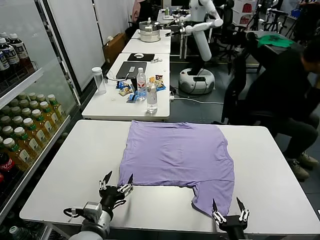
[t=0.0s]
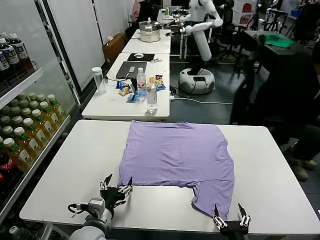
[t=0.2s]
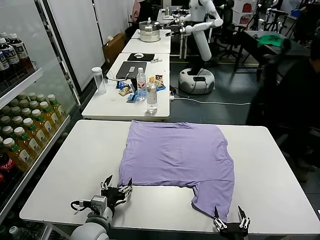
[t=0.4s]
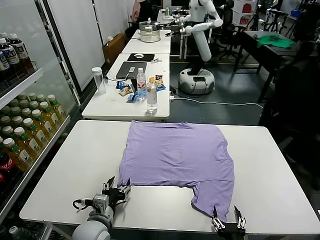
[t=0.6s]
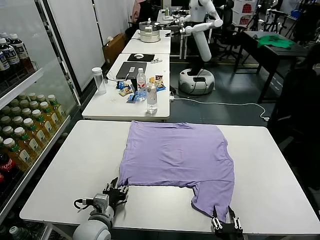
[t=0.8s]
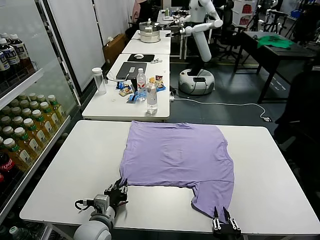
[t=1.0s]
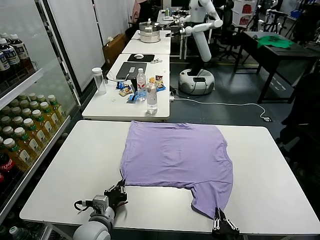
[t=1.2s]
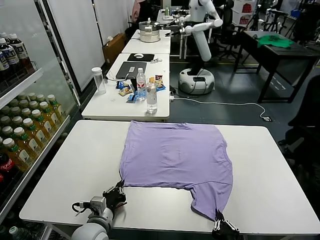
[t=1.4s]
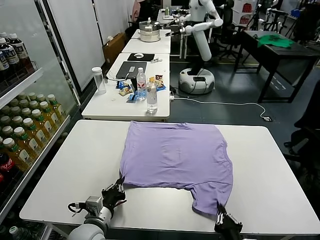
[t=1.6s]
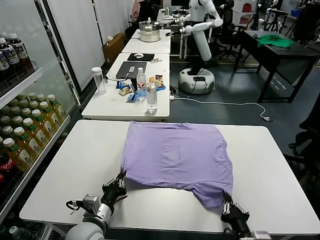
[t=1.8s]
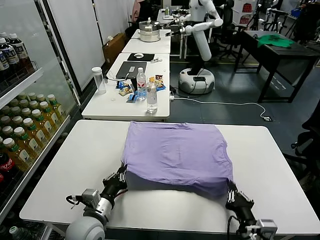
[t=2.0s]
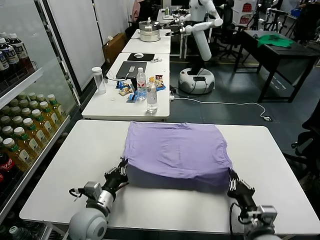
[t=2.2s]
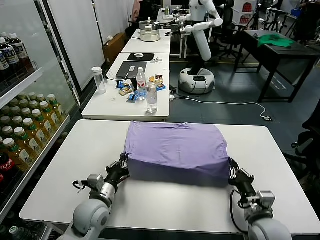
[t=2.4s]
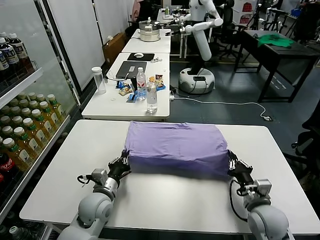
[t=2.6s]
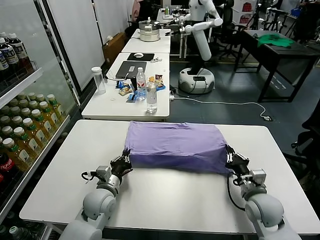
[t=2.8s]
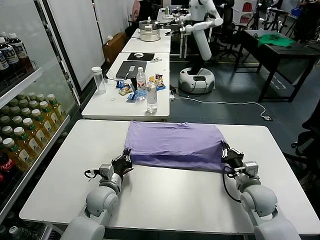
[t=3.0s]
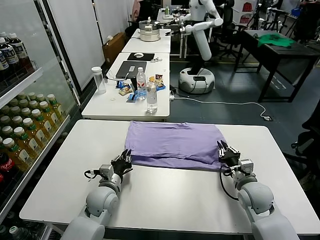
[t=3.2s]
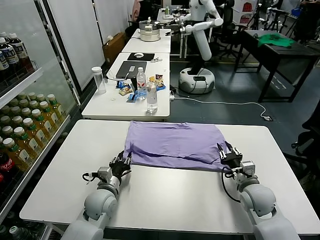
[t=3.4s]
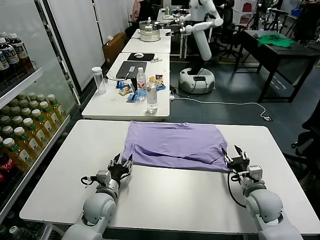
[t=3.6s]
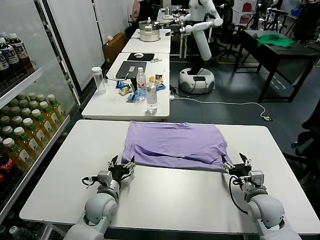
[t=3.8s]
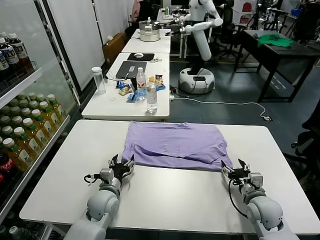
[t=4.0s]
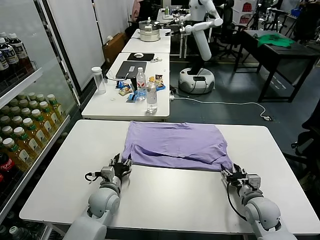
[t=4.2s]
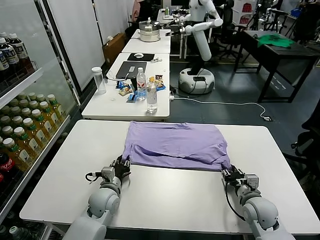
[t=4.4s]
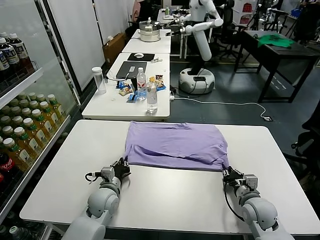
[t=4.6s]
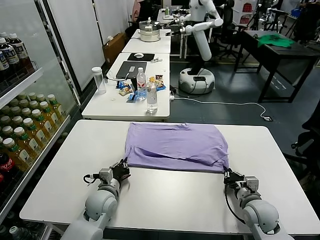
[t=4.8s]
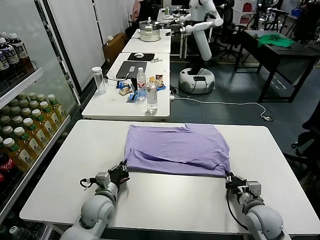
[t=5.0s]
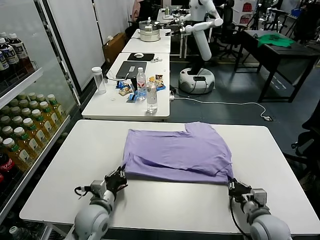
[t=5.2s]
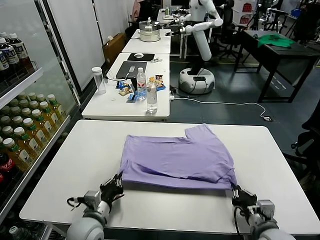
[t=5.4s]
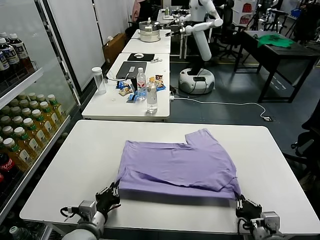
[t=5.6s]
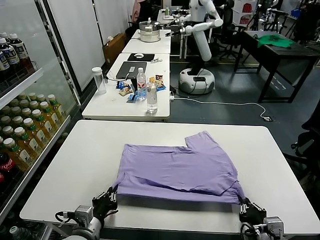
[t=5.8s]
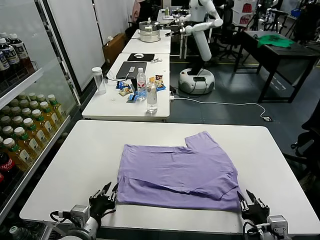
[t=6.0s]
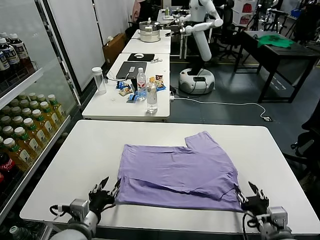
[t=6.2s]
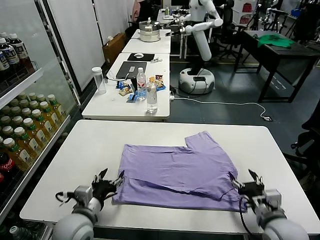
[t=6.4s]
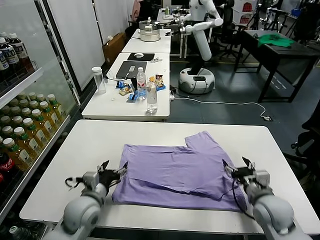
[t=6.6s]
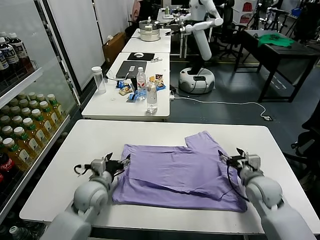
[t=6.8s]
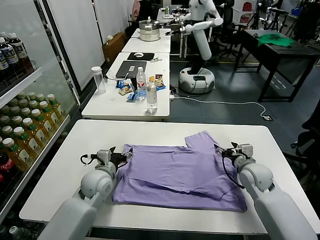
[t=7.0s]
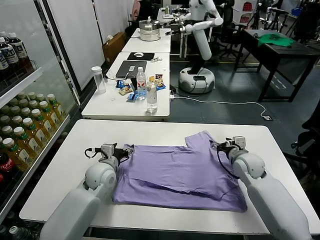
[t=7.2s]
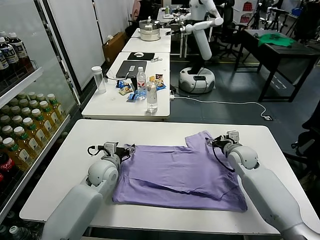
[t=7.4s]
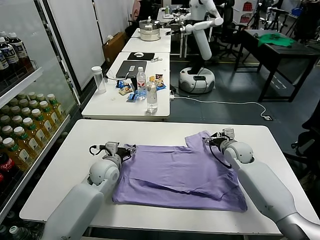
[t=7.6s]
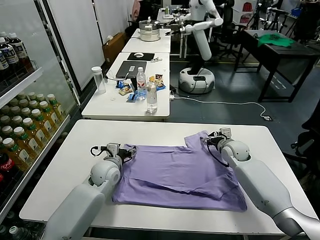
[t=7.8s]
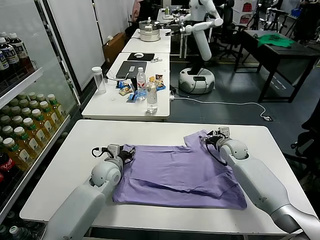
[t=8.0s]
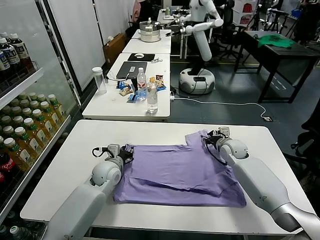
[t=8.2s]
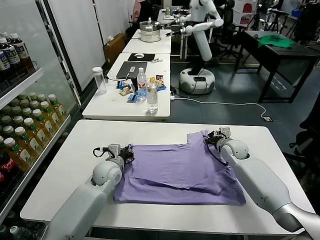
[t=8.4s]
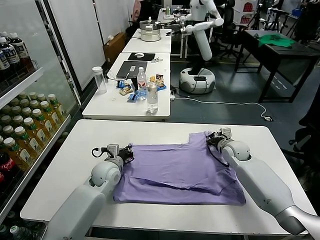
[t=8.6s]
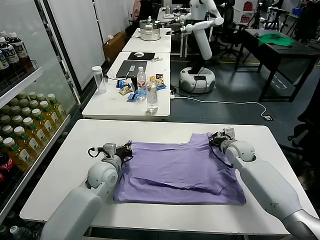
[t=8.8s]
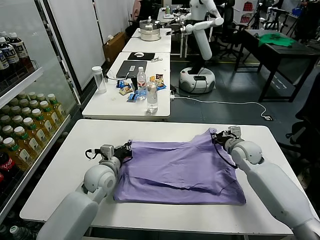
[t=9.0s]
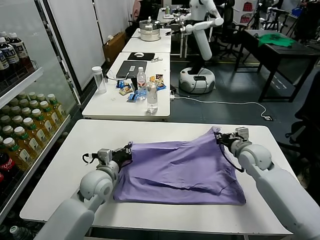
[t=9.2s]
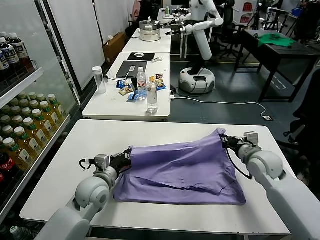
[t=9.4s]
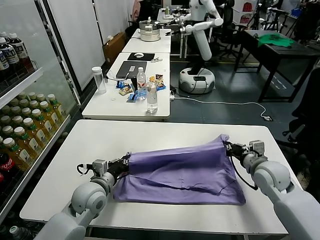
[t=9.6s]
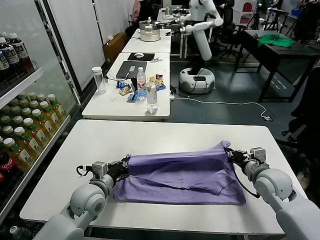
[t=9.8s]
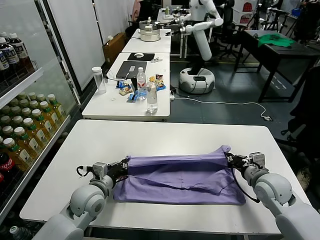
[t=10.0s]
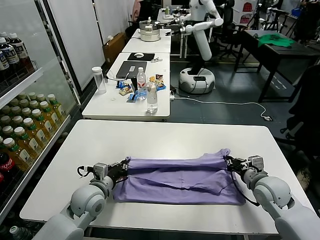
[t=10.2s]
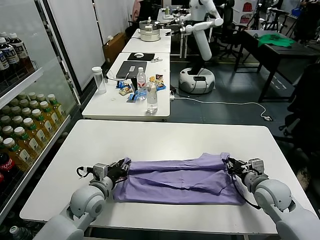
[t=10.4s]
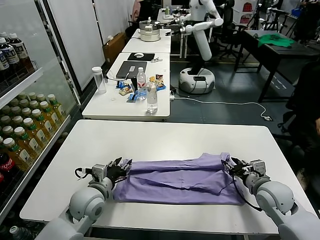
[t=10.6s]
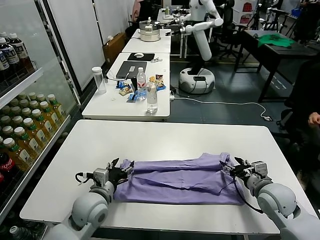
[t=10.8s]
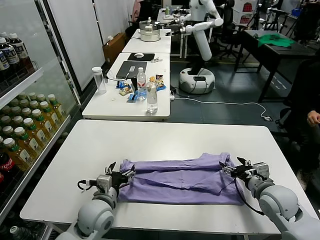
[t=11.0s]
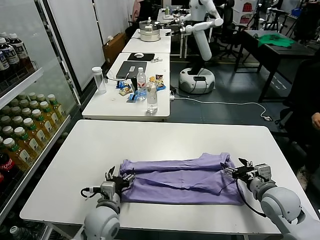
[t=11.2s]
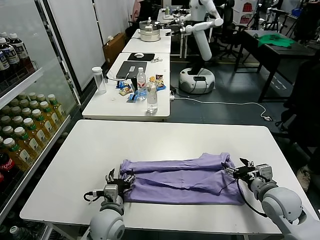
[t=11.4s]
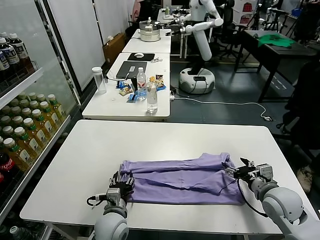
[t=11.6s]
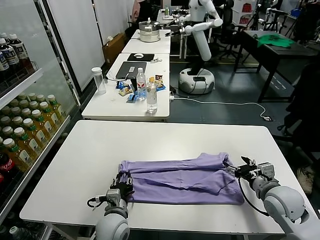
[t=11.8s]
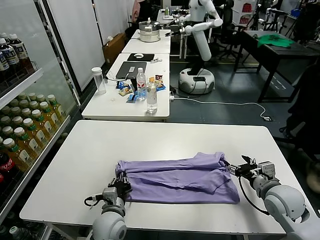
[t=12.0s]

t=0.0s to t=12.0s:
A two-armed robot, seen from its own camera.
Task of the whole recording: fold and organize the clothes.
Step, t=0.0s to t=1.4s: use both grippers simultaneously to clamp the lower edge of the clothing fabric.
Step, t=1.6s to t=3.4s: use both grippers to drag the lower edge of the fabric forward and fold it over the upper edge.
Step, t=3.6s to t=6.2s: Drag the clothes downward with both gripper.
Step, t=6.4s to t=8.4s: use both grippers simultaneously to clamp the upper edge of the clothing fabric.
Step, t=8.8s to t=11.0s: use both grippers to drag the upper edge of the fabric backward and fold it over the lower edge.
t=1.6s to t=3.0s: The right gripper is displaced forward by approximately 20 cm; the left gripper travels forward by roughly 15 cm.
t=3.0s to t=4.4s: The right gripper changes place by some 5 cm, and opens, then closes once more. The left gripper opens, then closes once more.
t=4.4s to t=6.0s: Both grippers travel together backward and upward, approximately 20 cm. The right gripper opens its fingers.
t=6.0s to t=7.6s: The two grippers go some 30 cm forward. The right gripper opens up; the left gripper opens.
t=7.6s to t=9.0s: The right gripper changes place by roughly 5 cm, and closes its fingers. Meanwhile the left gripper closes up.
t=9.0s to t=10.4s: The right gripper is displaced backward by approximately 15 cm, and opens. Meanwhile the left gripper shifts roughly 5 cm backward, and opens up.
t=10.4s to t=12.0s: The right gripper opens its fingers; the left gripper heads to the right, downward and backward, covering some 10 cm, and opens, then closes again.

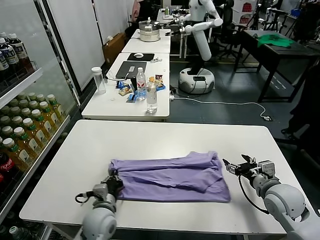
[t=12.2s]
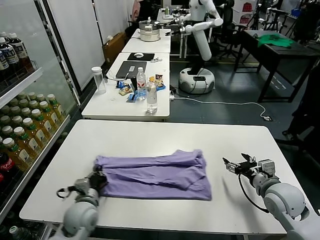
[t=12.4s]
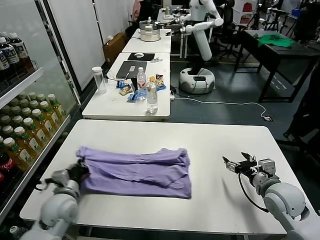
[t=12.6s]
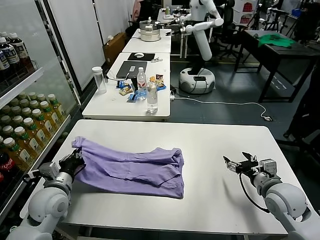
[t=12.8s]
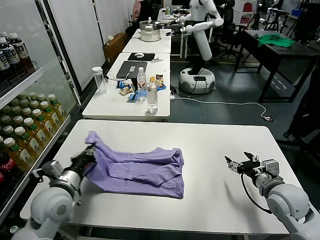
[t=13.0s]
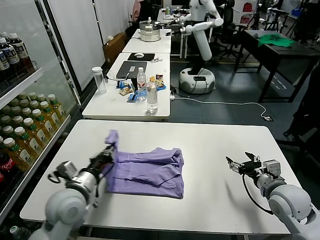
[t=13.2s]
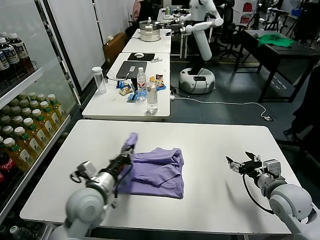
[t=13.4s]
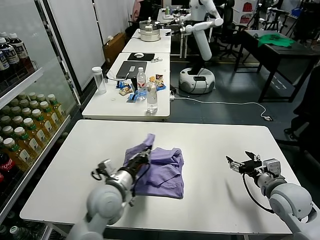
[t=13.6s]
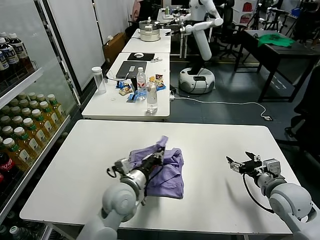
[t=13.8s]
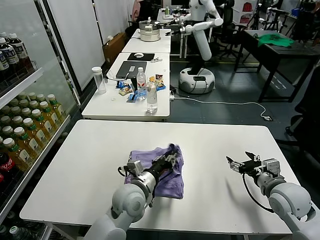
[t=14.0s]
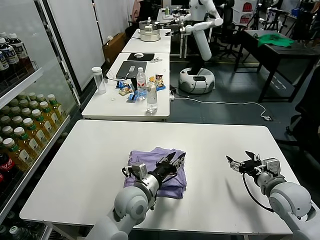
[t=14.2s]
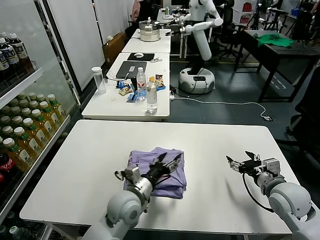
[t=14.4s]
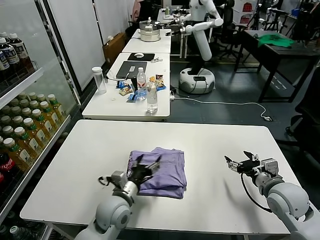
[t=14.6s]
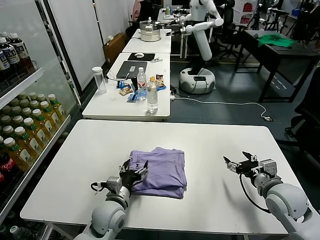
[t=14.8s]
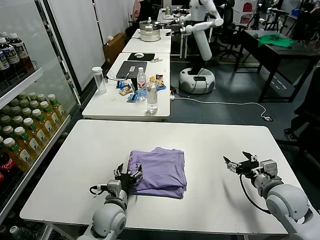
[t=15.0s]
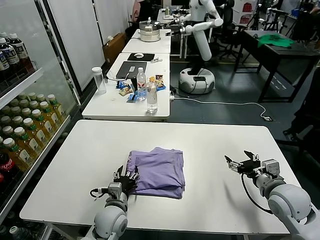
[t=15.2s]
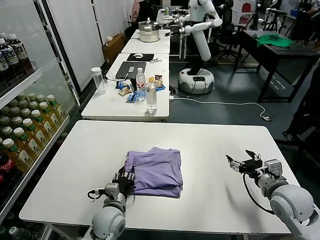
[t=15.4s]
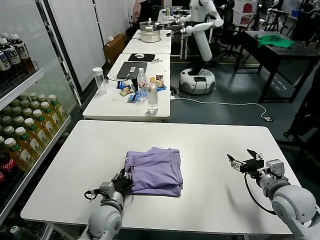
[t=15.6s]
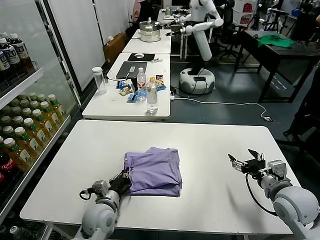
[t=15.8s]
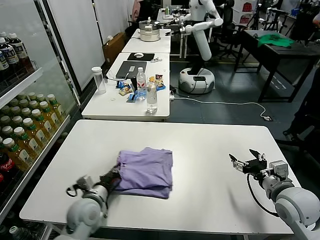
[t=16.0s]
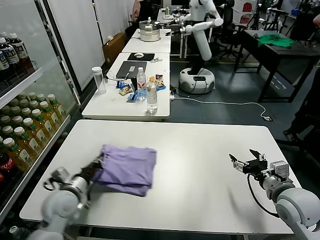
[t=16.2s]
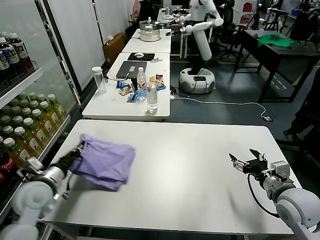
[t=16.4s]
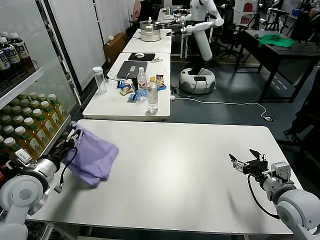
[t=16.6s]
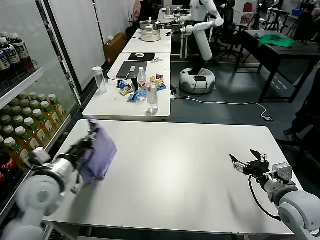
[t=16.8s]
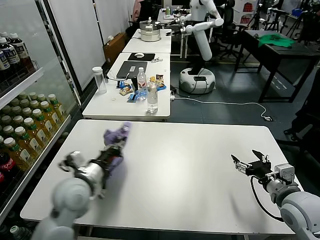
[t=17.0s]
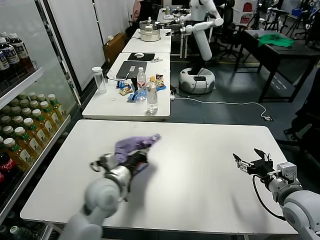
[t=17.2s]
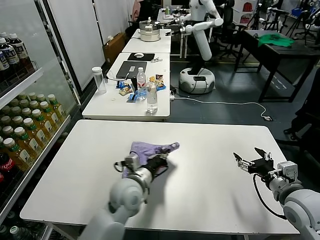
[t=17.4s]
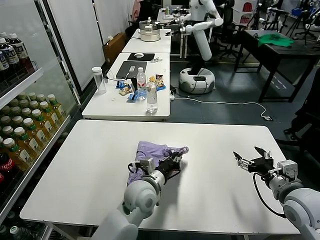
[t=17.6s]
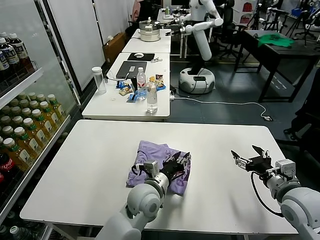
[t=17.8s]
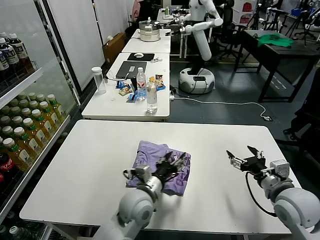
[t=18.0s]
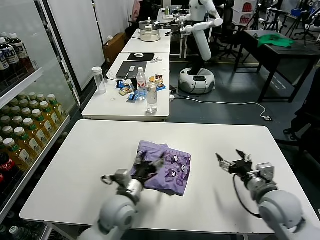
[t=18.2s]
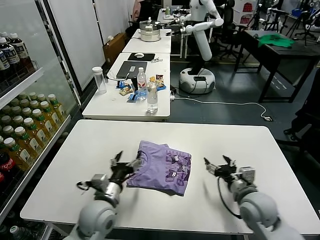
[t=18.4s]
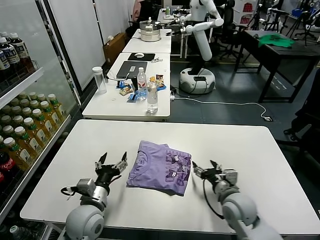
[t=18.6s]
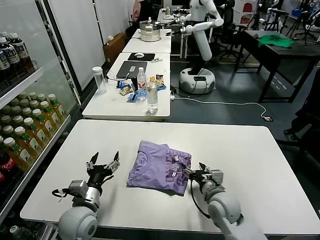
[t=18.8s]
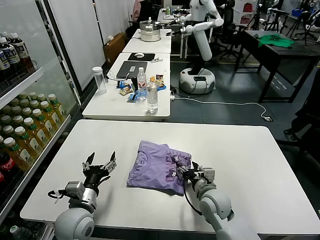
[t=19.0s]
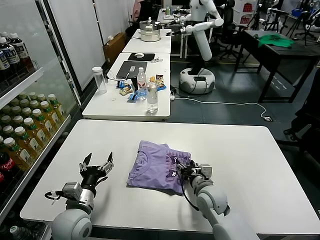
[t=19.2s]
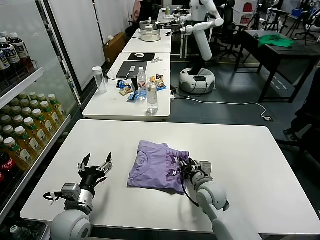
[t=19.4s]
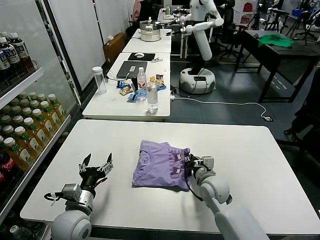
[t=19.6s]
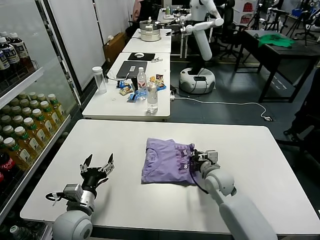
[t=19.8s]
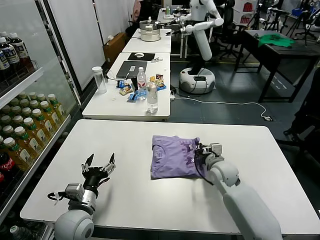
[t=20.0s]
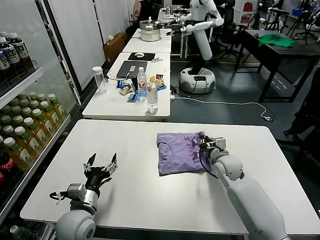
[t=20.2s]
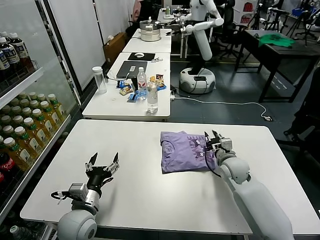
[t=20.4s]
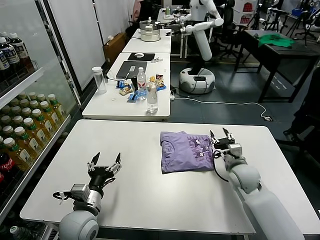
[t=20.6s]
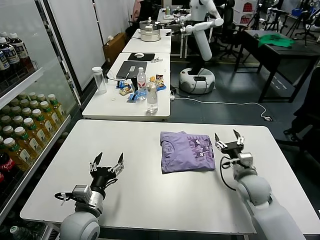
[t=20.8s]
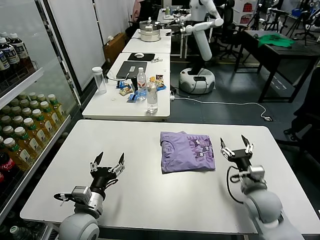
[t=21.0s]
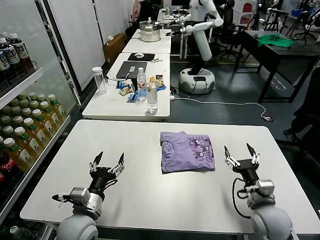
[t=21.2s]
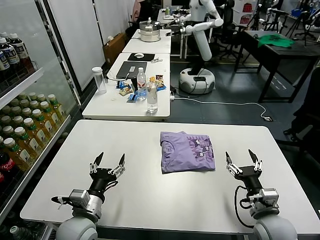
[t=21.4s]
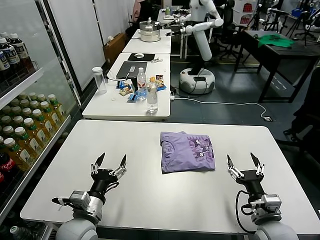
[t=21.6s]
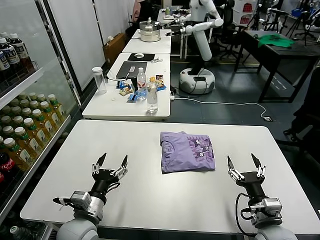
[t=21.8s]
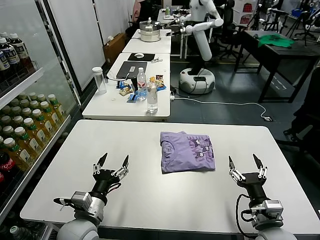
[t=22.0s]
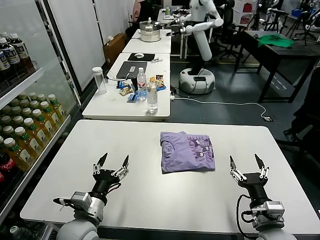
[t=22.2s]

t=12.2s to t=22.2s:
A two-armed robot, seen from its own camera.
Task of the whole recording: fold and organize the clothes.
Step, t=12.4s to t=14.6s: use the left gripper to drag the left edge of the fabric to the left and folds it over the right edge.
Step, t=14.8s to t=18.0s: Flip the folded clothes over with left gripper.
Step, t=18.2s to t=20.6s: Drag the clothes to the center of the table.
t=12.2s to t=13.6s: The left gripper is displaced upward by roughly 10 cm, and reaches some 15 cm to the left, then returns.
t=13.6s to t=15.0s: The left gripper is displaced downward by some 10 cm, and opens its fingers.
t=15.0s to t=16.4s: The left gripper heads to the left and upward, covering some 20 cm, and closes.
t=16.4s to t=18.0s: The left gripper goes approximately 30 cm to the right, and opens.
t=18.0s to t=19.4s: The left gripper heads to the left, covering approximately 20 cm, while the right gripper heads to the left, downward and forward, covering roughly 25 cm, and closes.
t=19.4s to t=20.8s: The right gripper travels to the right by about 15 cm, and closes, then opens again.
t=20.8s to t=22.2s: The right gripper moves backward, approximately 20 cm.
